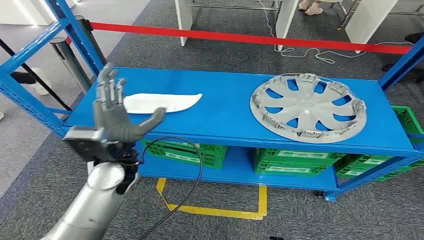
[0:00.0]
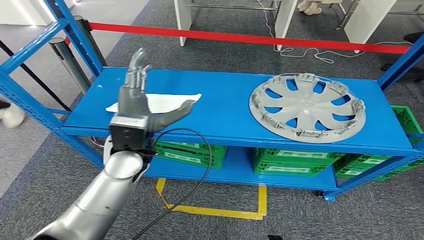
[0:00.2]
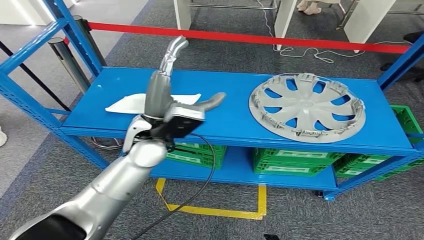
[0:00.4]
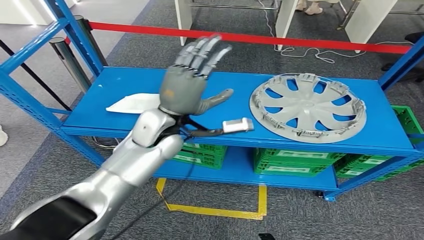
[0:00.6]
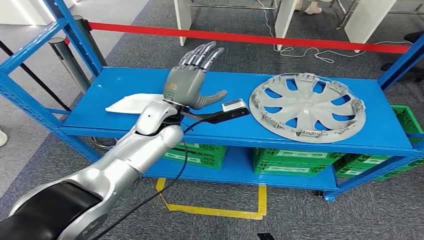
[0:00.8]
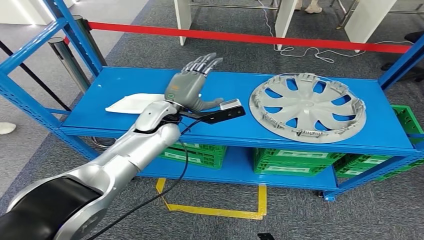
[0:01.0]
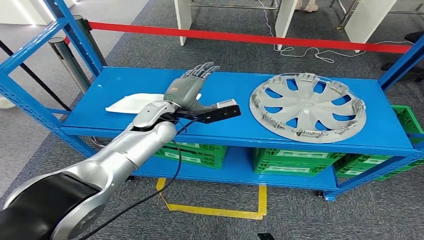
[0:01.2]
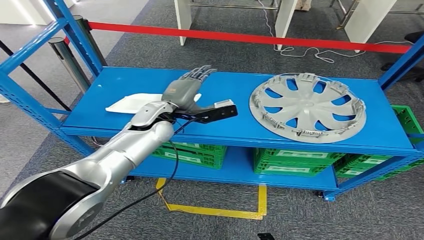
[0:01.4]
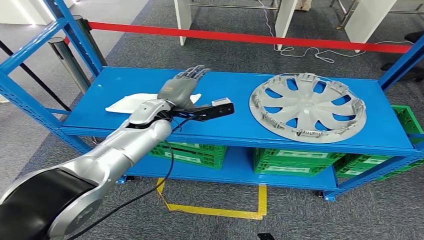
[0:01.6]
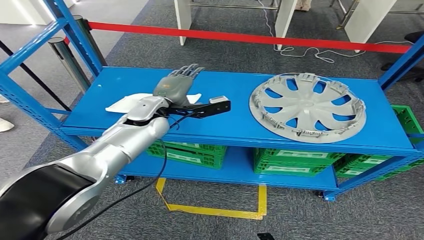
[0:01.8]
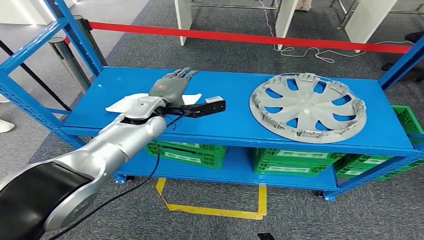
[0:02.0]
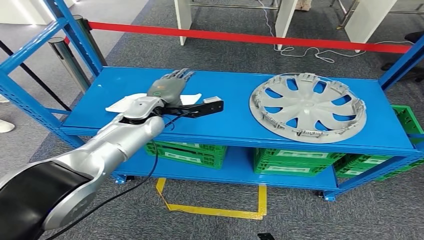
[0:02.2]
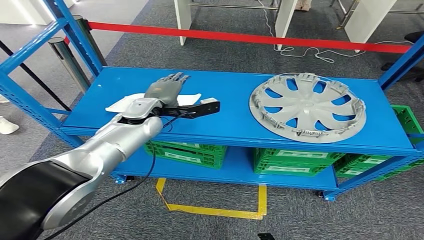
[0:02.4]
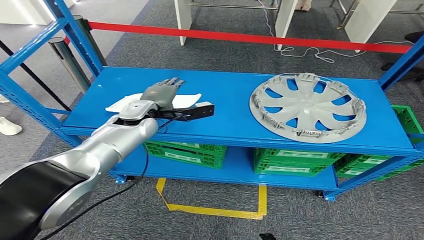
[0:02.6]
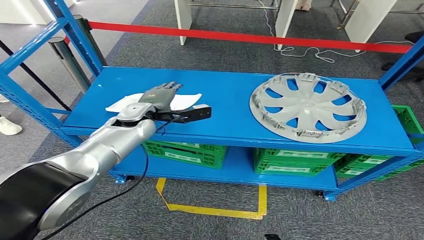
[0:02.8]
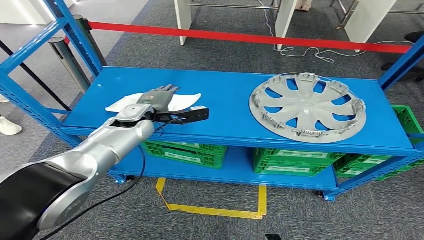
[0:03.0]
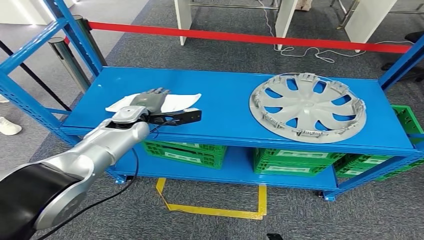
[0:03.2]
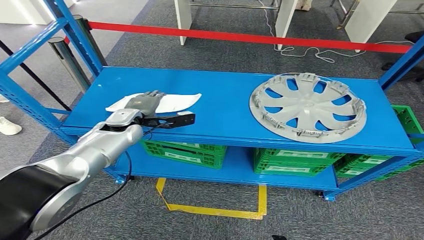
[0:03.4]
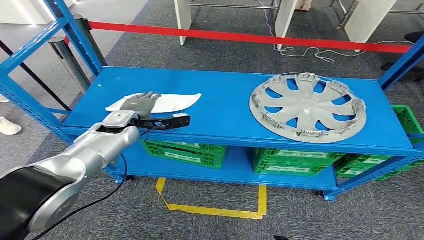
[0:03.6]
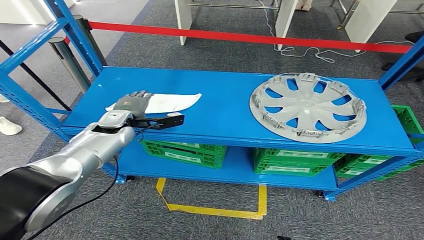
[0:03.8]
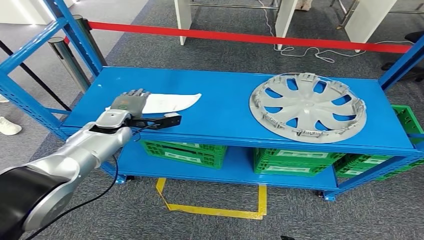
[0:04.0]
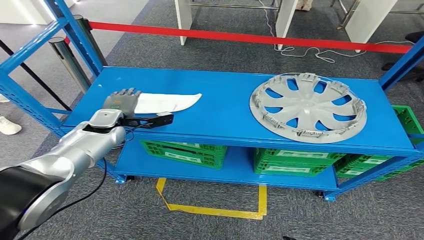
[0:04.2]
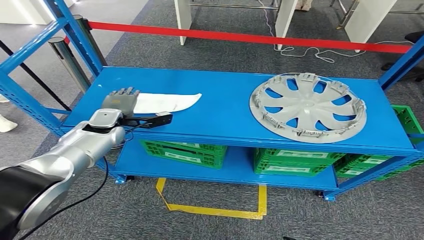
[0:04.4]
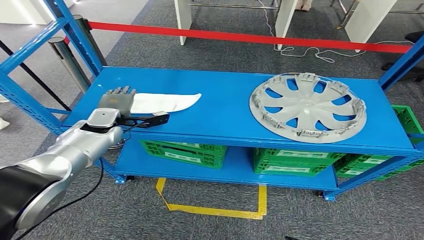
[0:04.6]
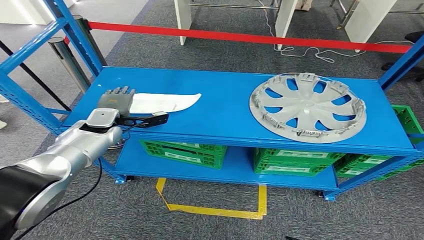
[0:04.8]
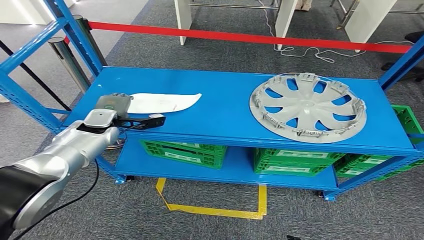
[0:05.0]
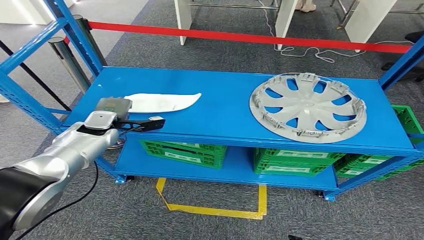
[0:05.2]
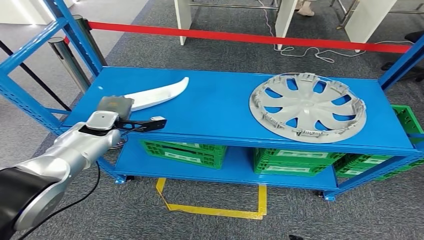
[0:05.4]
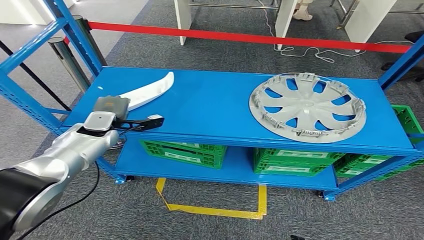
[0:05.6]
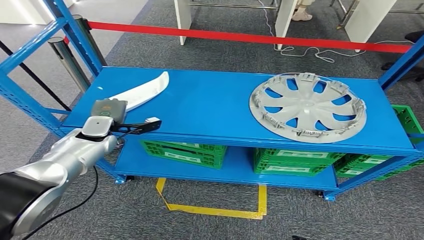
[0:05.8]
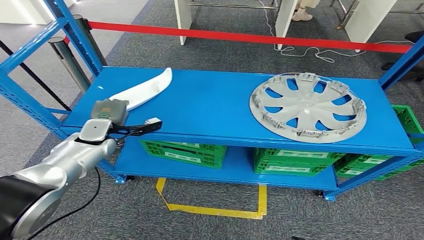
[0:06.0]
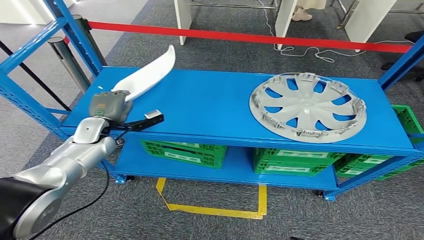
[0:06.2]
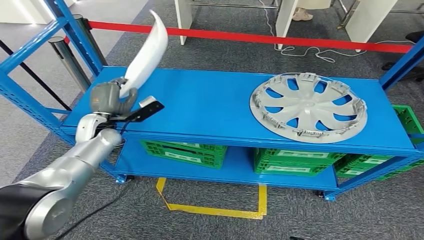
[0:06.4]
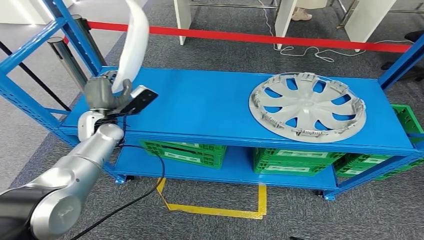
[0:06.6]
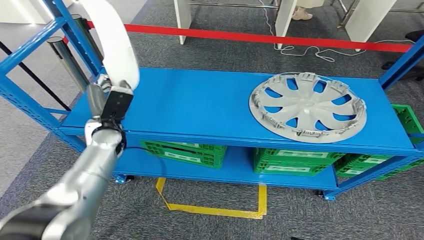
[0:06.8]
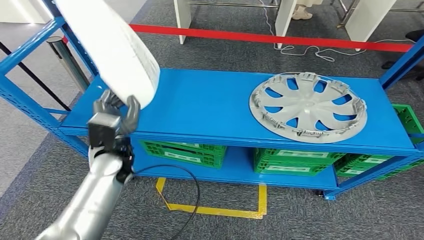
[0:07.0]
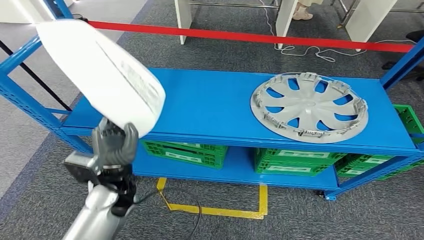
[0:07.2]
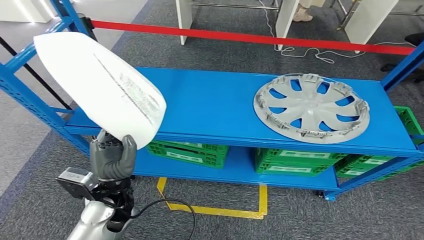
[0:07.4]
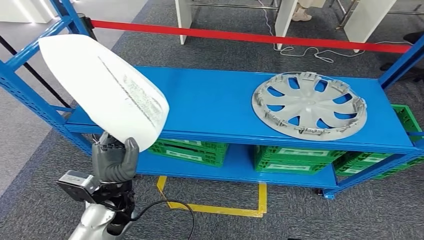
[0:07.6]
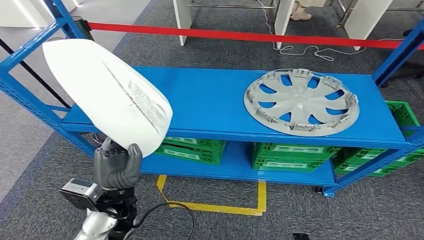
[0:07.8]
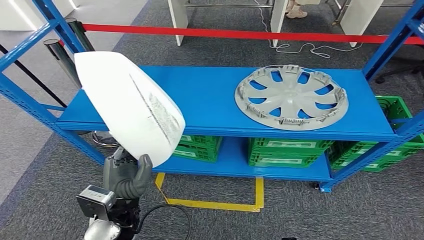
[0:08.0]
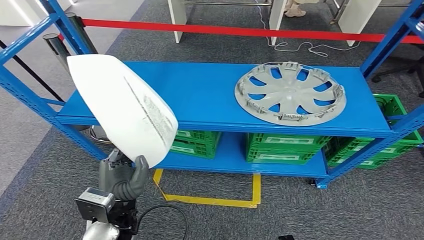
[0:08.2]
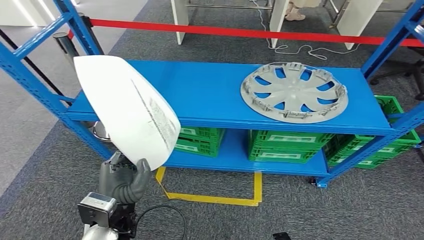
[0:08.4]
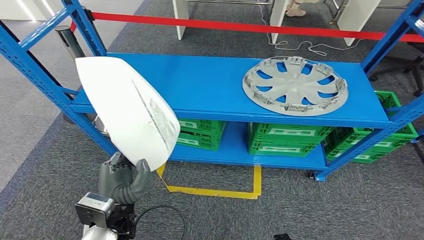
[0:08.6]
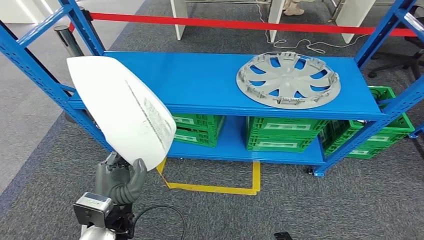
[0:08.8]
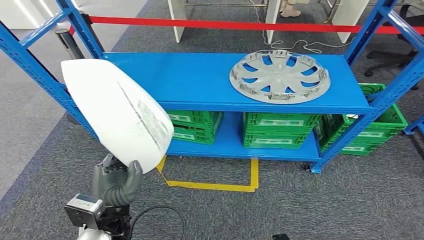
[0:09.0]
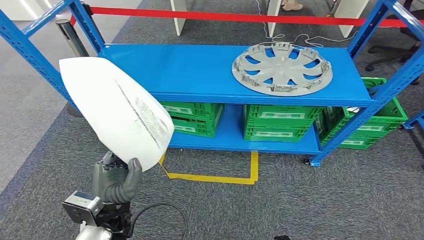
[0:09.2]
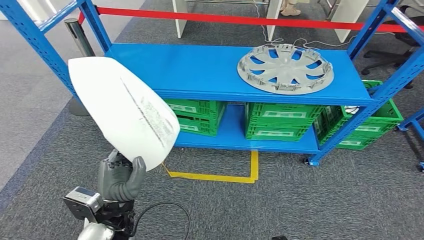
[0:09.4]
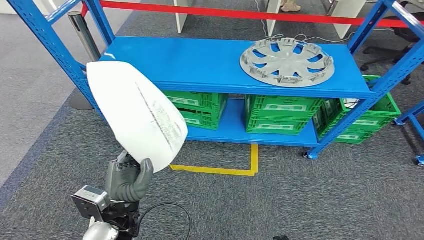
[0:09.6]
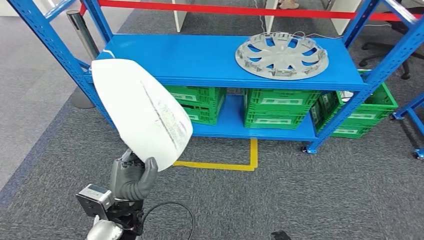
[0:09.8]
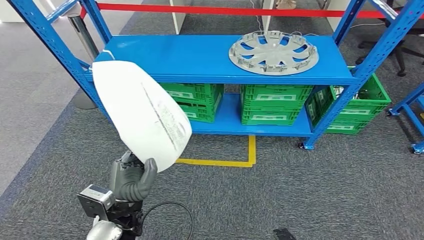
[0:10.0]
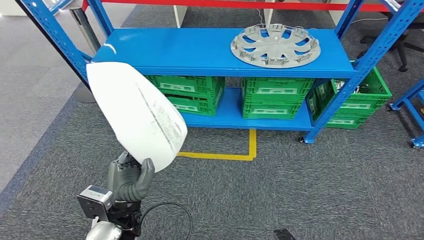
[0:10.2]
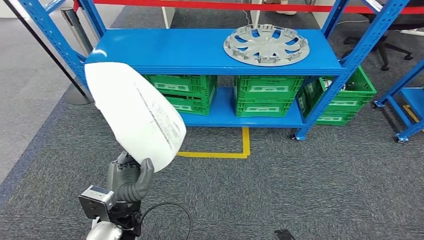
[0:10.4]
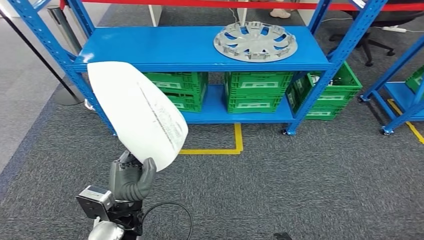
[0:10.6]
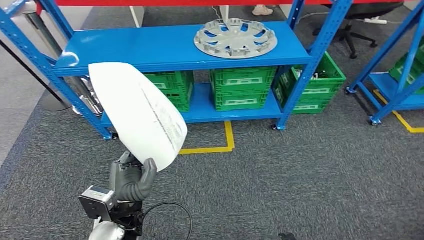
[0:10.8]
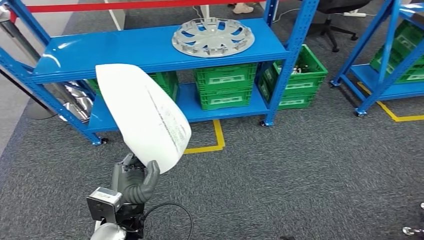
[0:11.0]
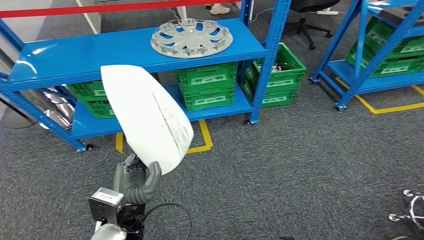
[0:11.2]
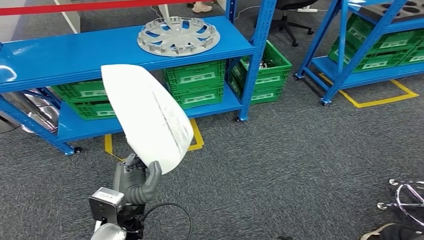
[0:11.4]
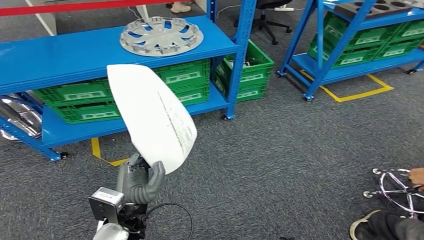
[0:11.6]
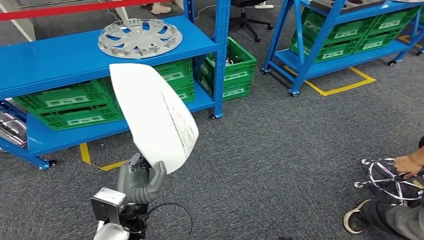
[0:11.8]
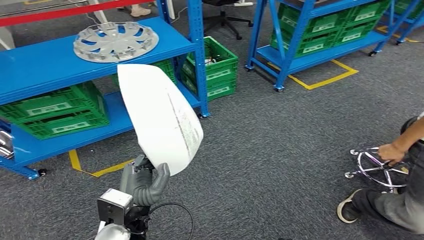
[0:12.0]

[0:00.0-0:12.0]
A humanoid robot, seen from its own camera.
Step, 0:00.0 to 0:07.8: Pick up the small parts from the shelf.
0:01.6 to 0:03.0: The left hand changes place by about 5 cm.
0:03.0 to 0:04.4: The left hand goes some 10 cm to the left.
0:04.4 to 0:06.0: The hands make only small movements.

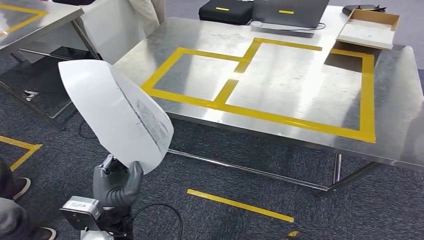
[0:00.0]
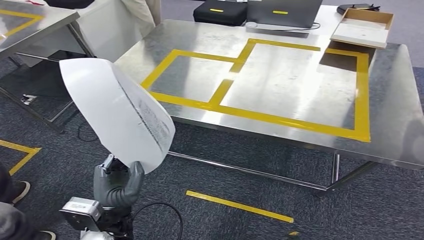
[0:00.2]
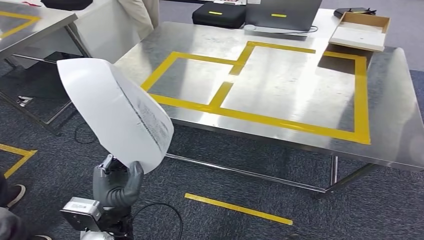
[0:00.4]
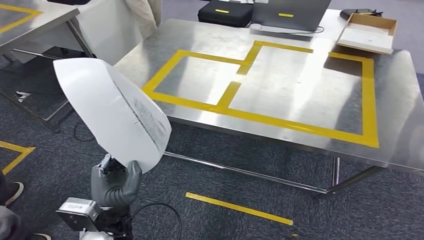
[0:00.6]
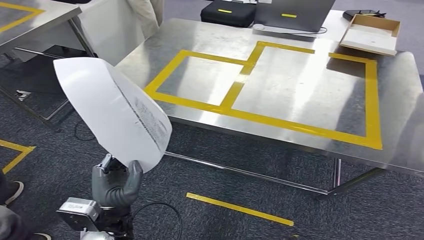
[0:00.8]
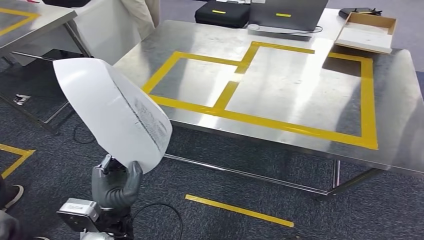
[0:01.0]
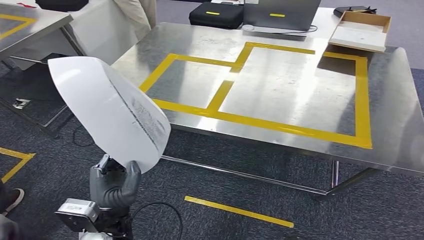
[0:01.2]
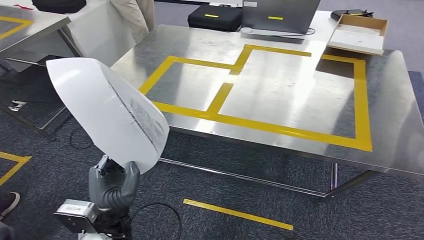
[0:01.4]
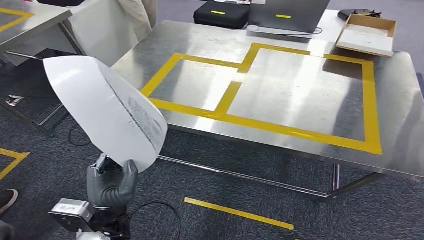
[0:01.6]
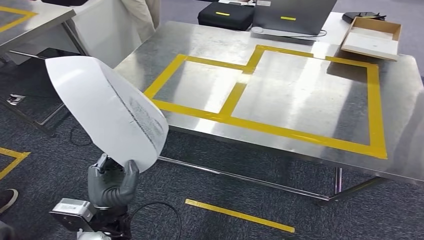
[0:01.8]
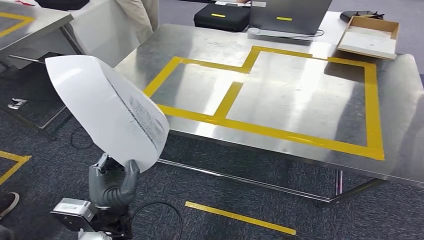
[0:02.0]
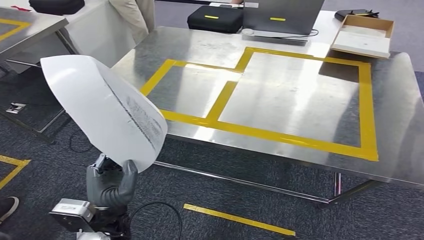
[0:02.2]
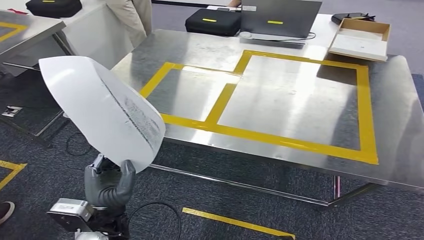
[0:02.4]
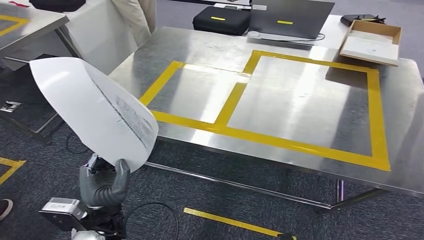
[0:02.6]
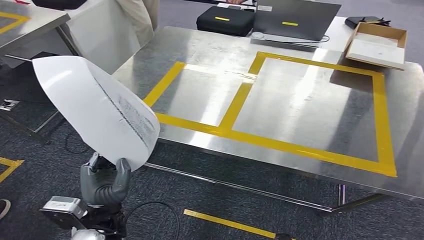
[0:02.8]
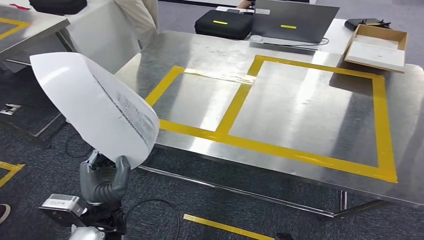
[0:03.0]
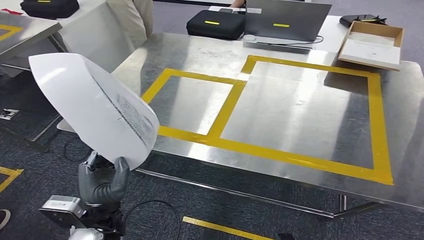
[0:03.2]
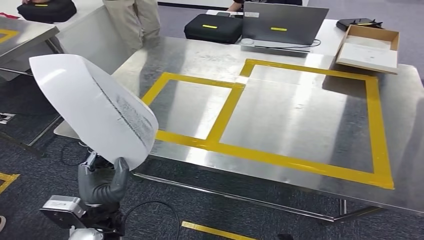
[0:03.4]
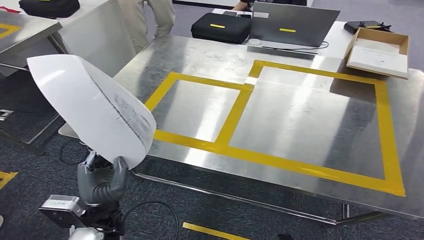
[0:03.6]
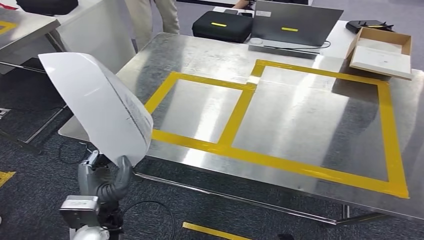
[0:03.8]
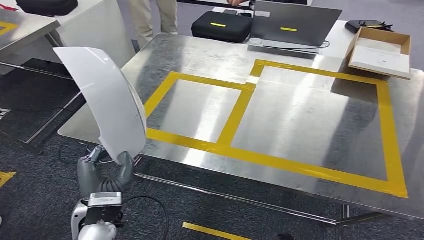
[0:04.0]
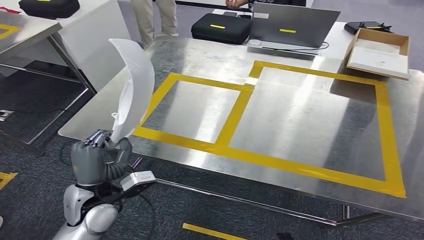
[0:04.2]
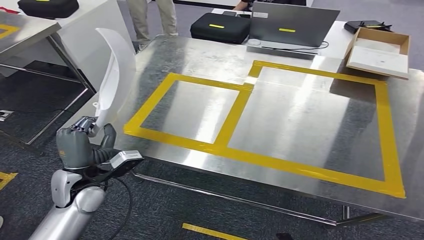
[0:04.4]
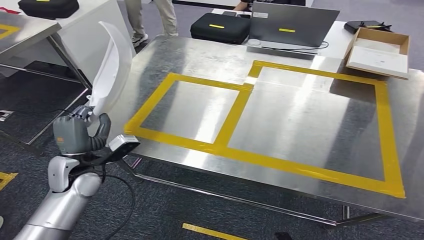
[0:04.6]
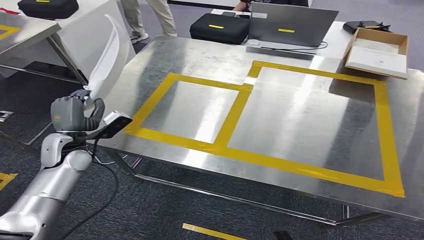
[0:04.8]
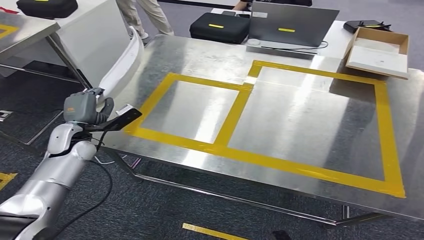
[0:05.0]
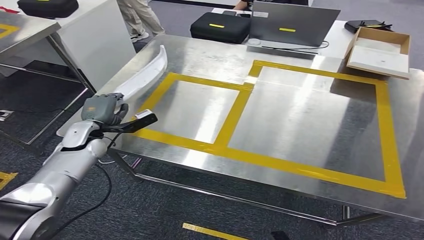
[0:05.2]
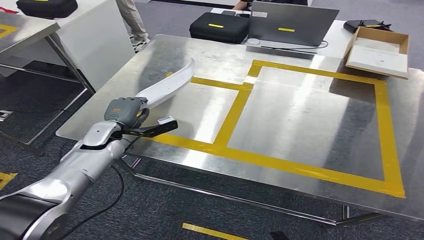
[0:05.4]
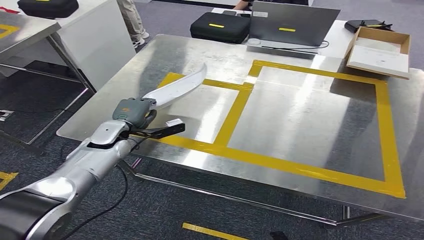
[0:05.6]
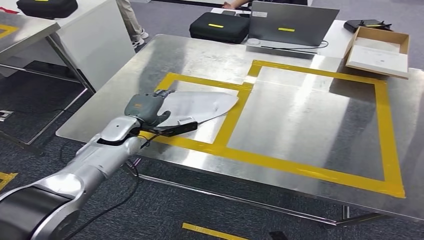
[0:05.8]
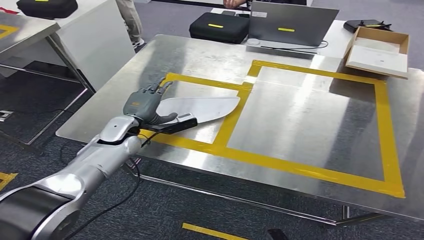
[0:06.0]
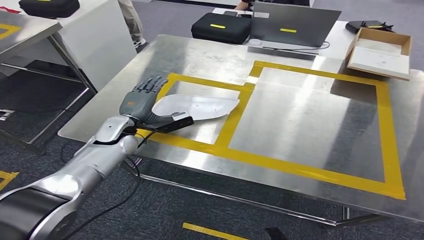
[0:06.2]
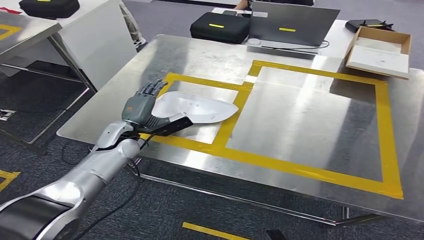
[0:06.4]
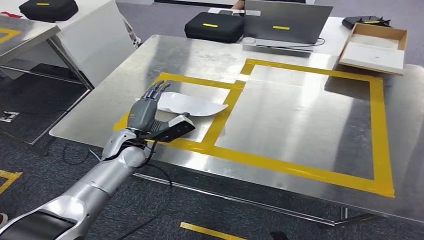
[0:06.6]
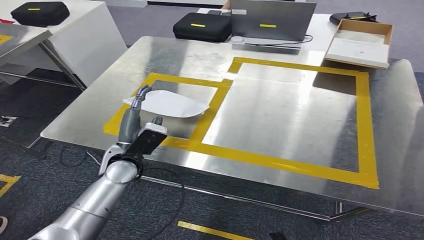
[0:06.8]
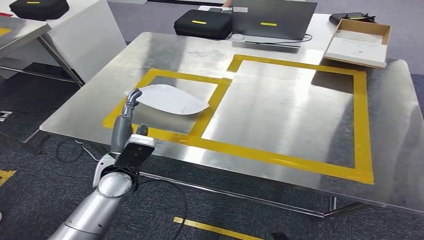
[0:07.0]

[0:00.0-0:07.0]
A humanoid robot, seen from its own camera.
Step, 0:00.0 to 0:03.4: Move the small parts to the workbench.
0:04.2 to 0:05.6: The left hand moves forward, roughly 20 cm.
